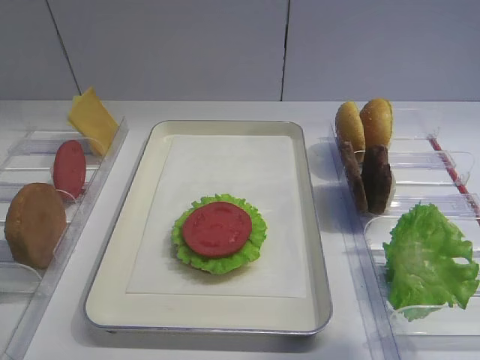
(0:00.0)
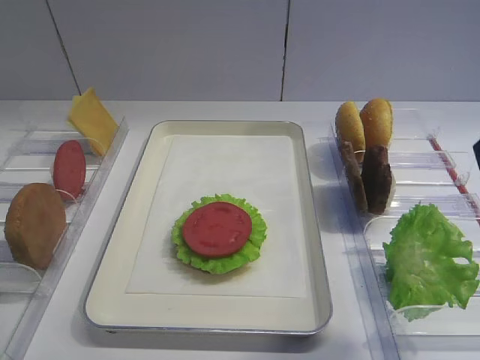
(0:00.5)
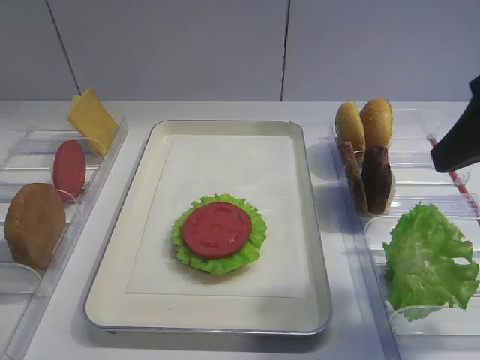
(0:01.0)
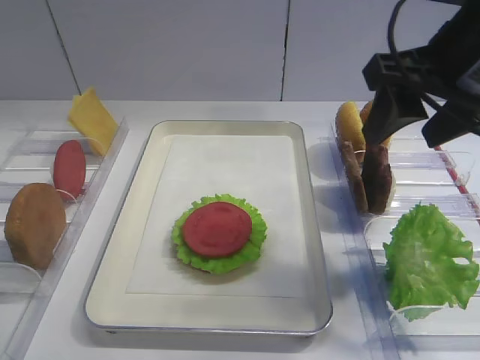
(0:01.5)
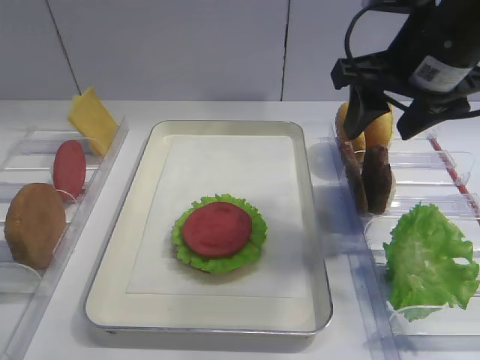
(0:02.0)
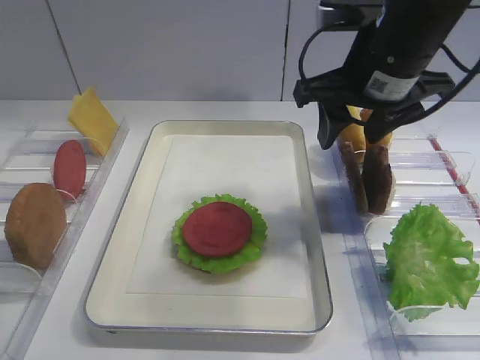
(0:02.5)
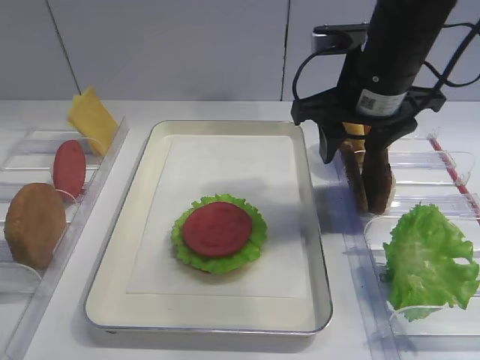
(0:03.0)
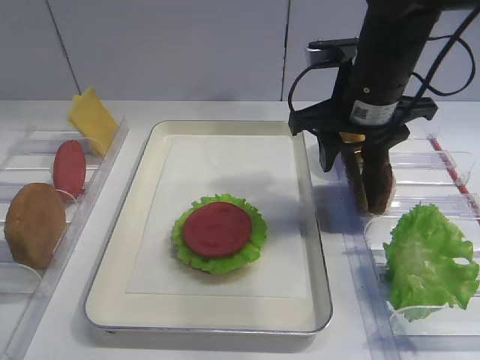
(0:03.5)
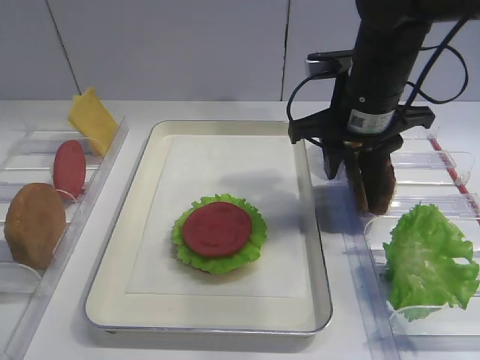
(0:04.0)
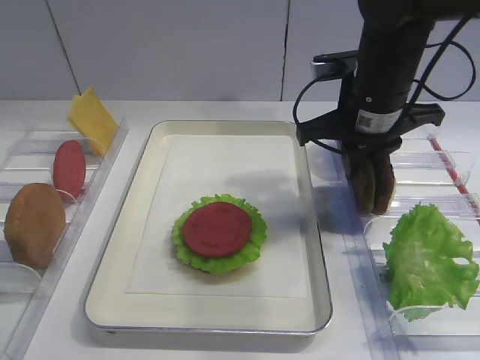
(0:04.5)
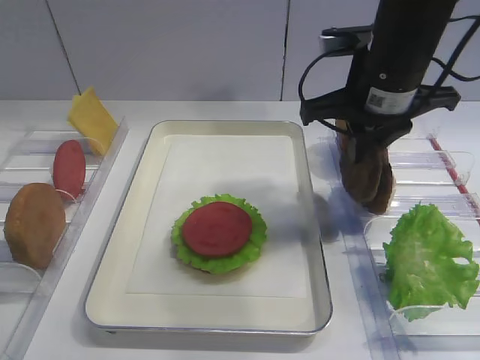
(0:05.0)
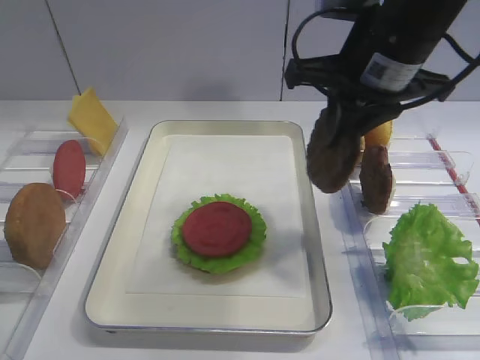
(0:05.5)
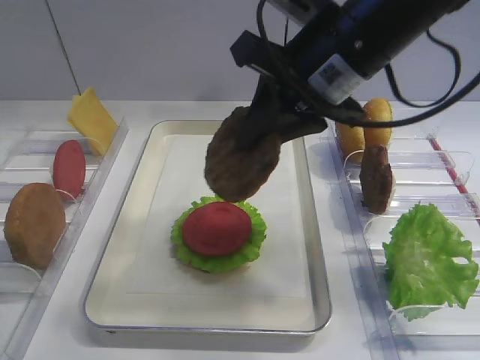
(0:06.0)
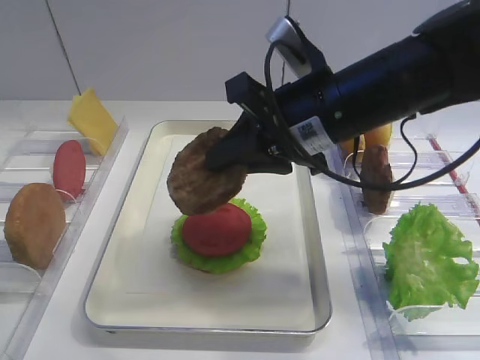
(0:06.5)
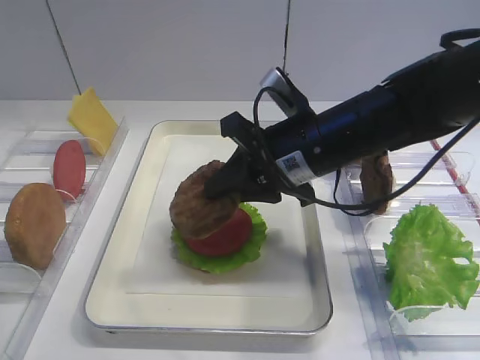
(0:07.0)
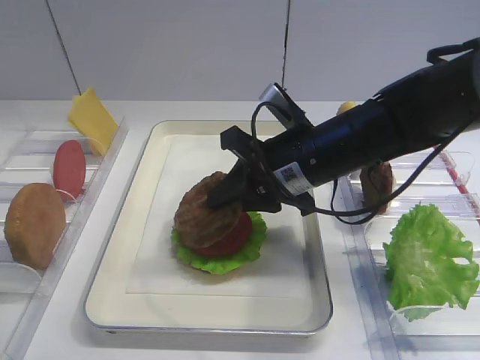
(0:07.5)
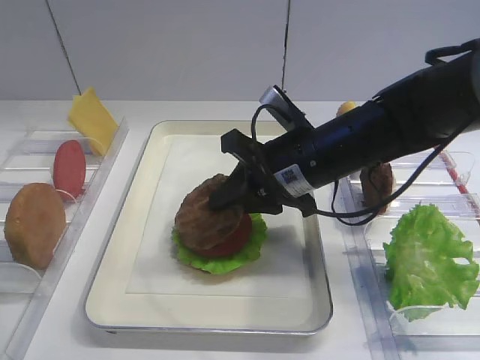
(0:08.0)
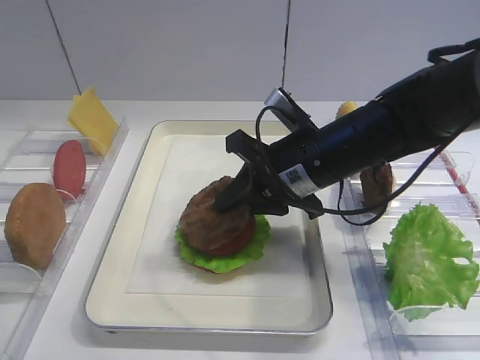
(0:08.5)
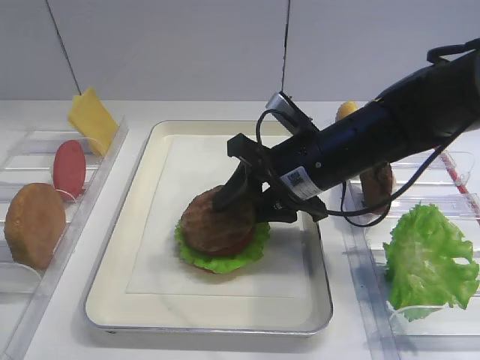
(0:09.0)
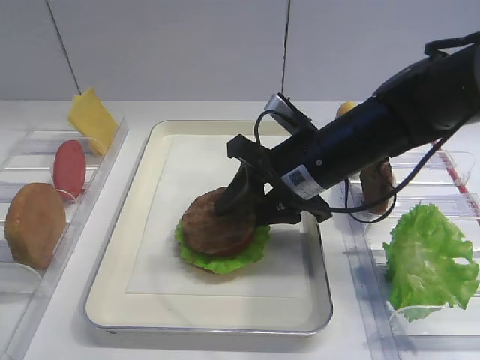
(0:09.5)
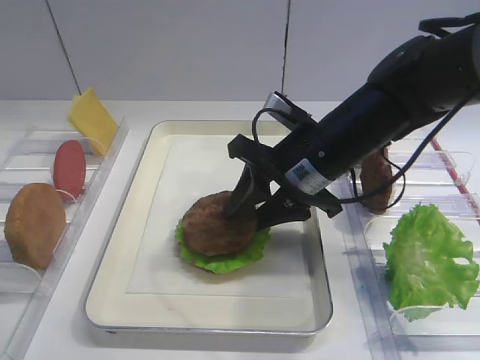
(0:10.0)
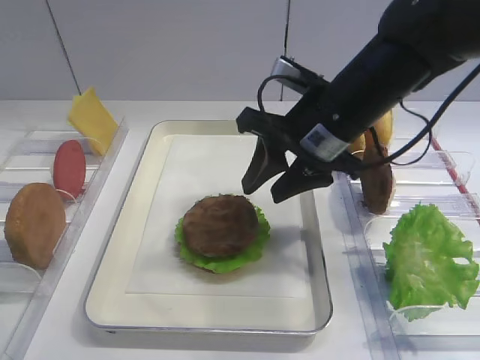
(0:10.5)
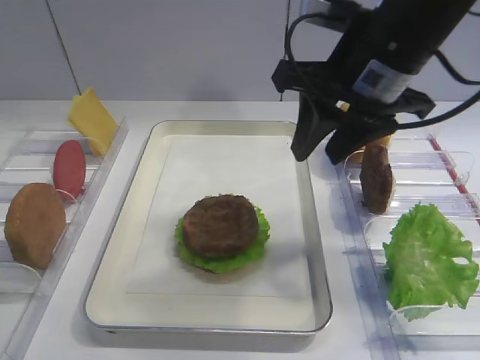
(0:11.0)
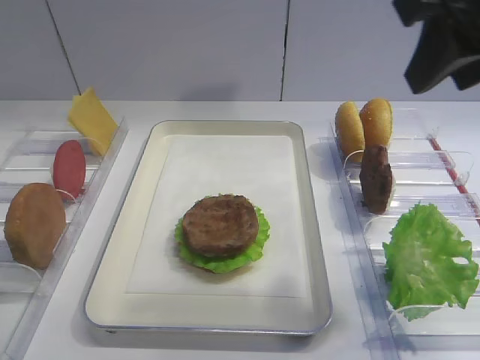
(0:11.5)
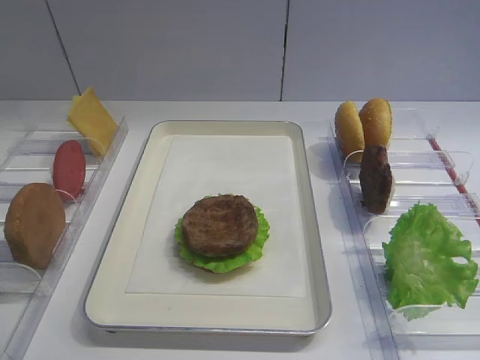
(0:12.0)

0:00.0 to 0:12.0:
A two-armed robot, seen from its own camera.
Step, 0:00.0 to 0:05.0: Pick up the cutlet with the right gripper.
Step, 0:05.5 to 0:10.5: Place the cutlet on the tomato slice with the right gripper.
0:02.0 to 0:04.0: The right gripper travels downward and forward by about 10 cm.
0:04.0 to 0:06.0: The right gripper moves upward and backward, roughly 10 cm, and closes.
0:06.0 to 0:08.0: The right gripper moves downward, about 15 cm.
0:08.0 to 0:10.0: The right gripper opens.
0:10.0 to 0:12.0: The right gripper is displaced backward, upward and to the right by approximately 30 cm.

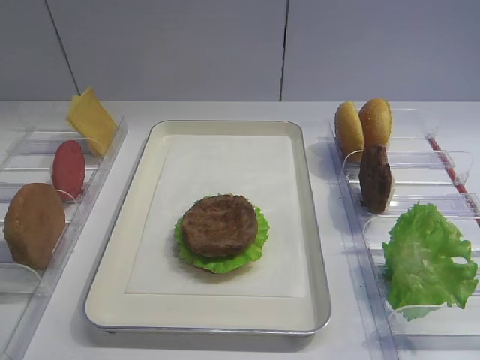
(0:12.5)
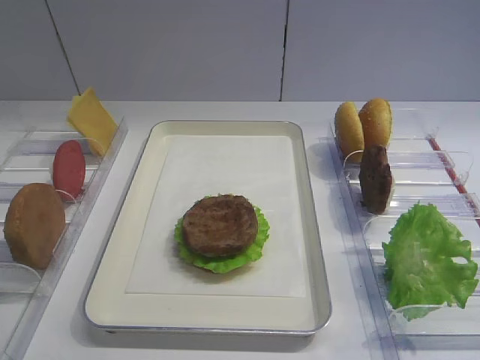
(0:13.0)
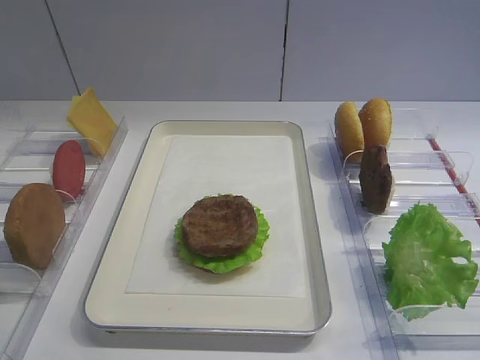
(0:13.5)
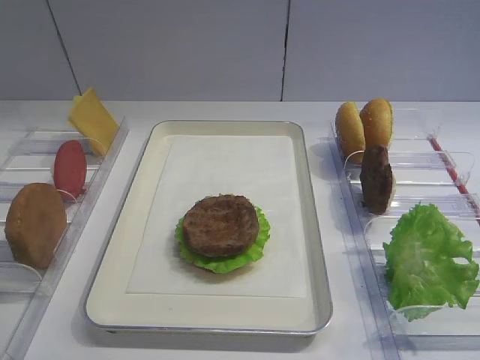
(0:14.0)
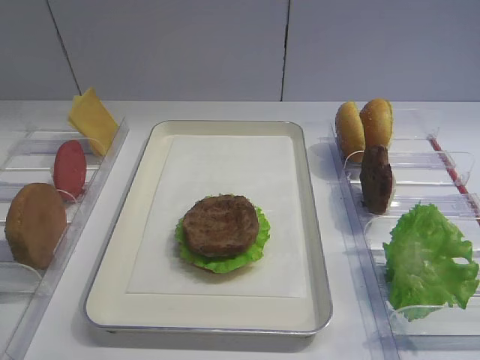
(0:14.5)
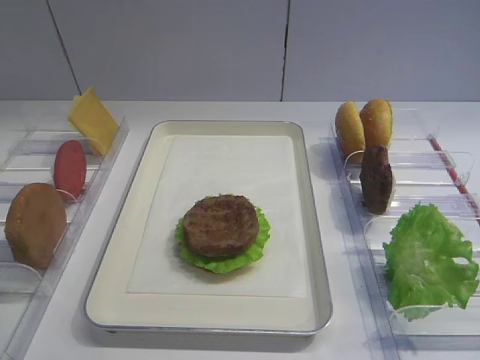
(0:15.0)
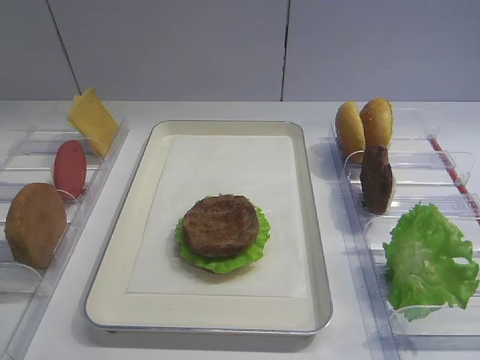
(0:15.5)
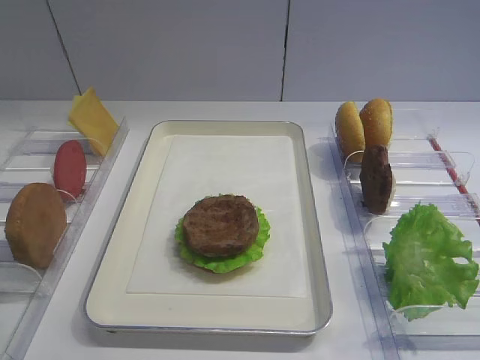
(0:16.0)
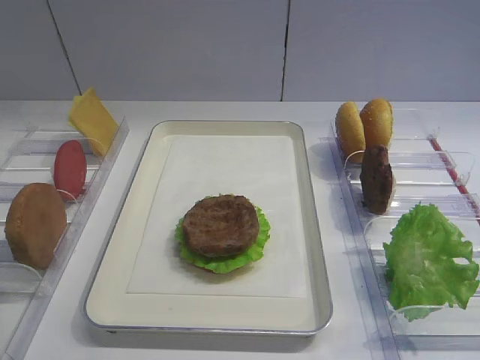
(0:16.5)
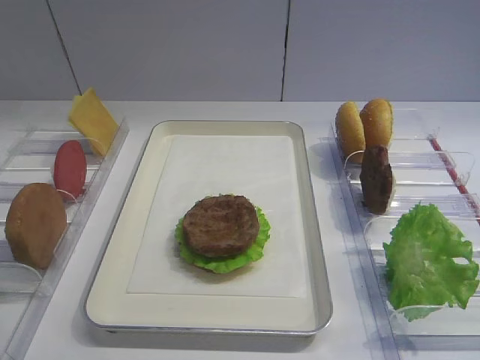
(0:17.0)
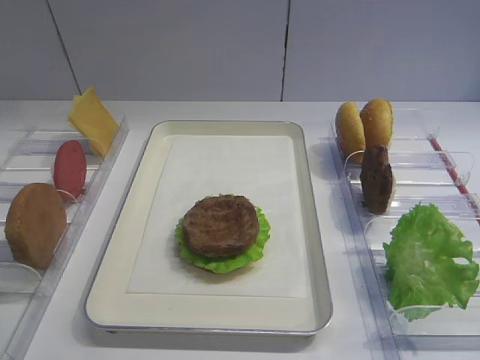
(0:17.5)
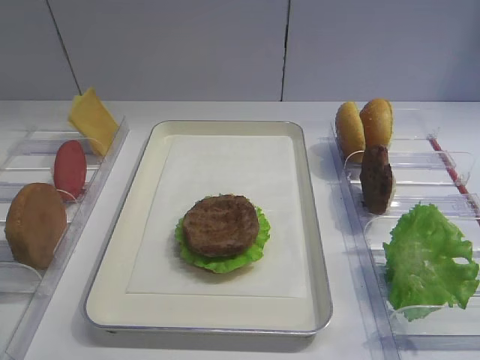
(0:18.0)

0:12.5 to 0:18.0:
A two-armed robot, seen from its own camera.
0:12.5 to 0:14.5: The right gripper travels downward by some 5 cm.
0:14.5 to 0:18.0: Both grippers stay put.

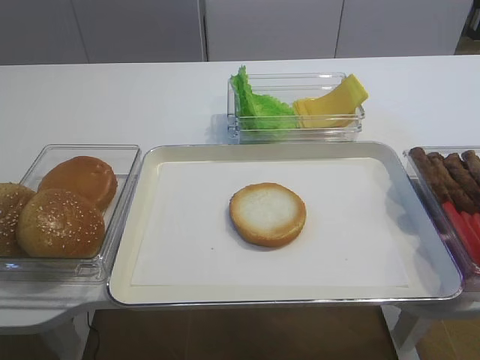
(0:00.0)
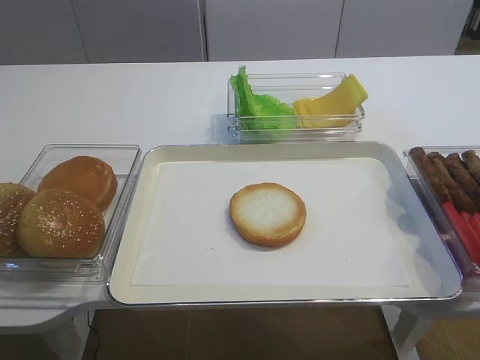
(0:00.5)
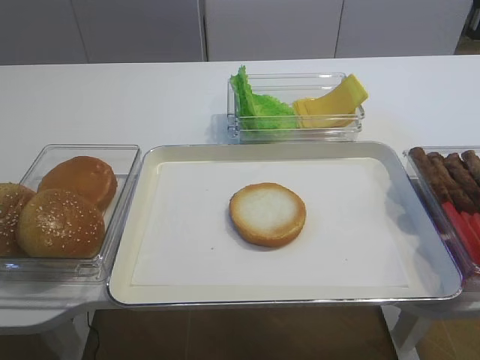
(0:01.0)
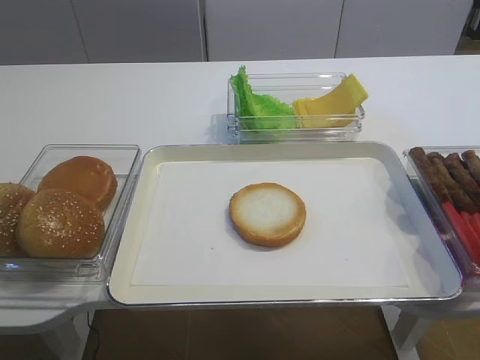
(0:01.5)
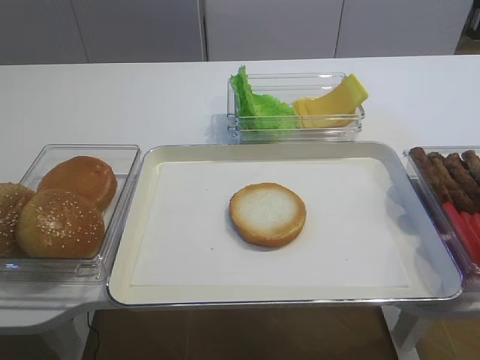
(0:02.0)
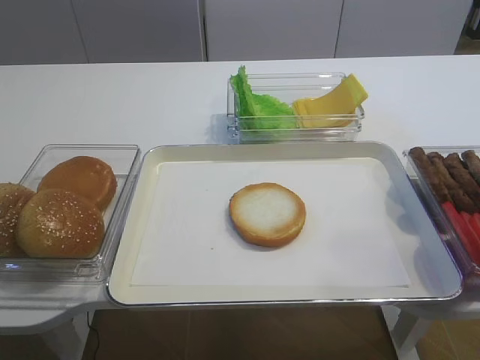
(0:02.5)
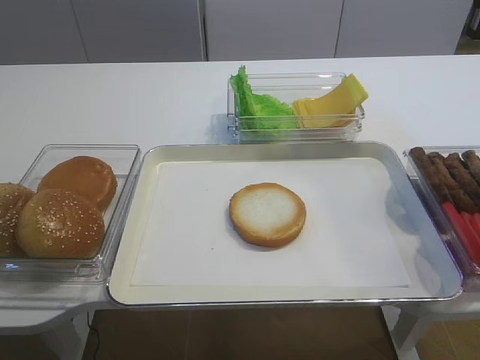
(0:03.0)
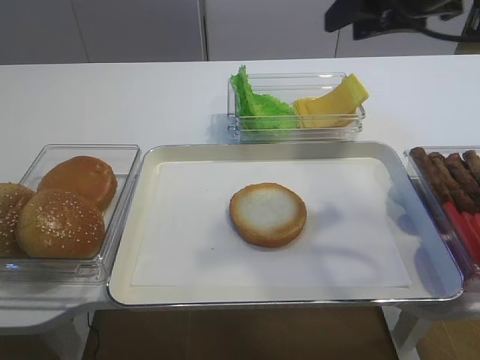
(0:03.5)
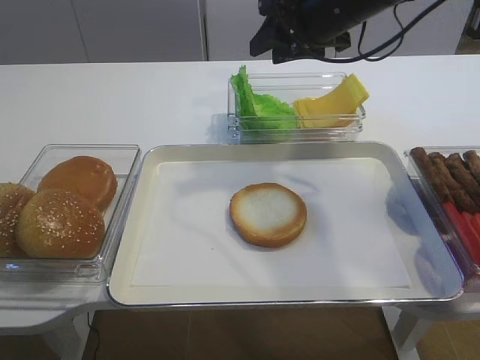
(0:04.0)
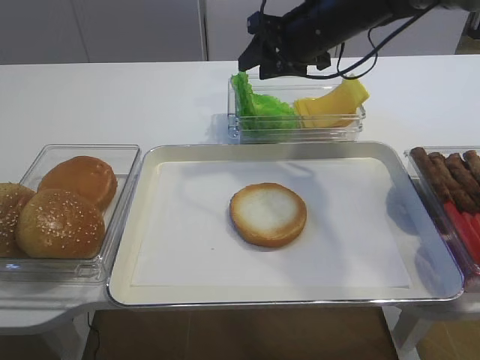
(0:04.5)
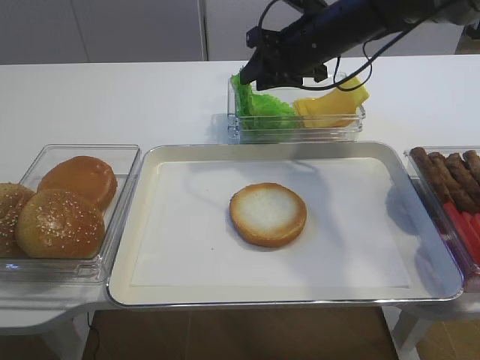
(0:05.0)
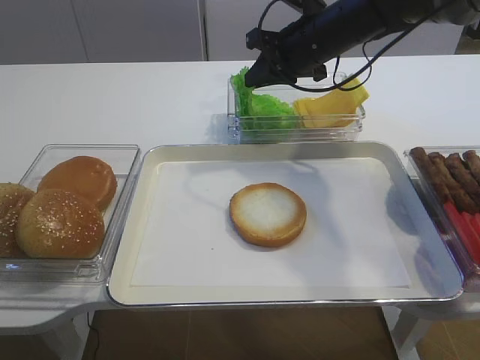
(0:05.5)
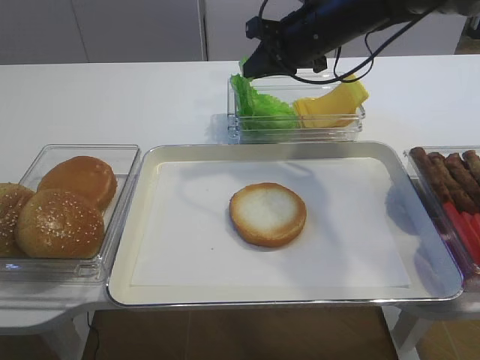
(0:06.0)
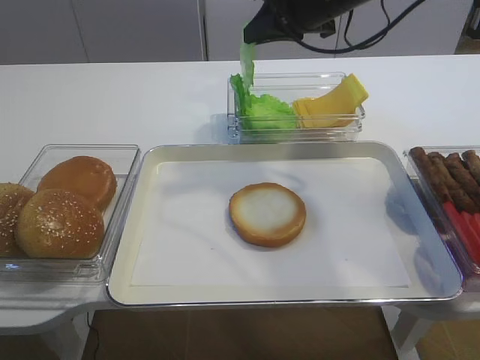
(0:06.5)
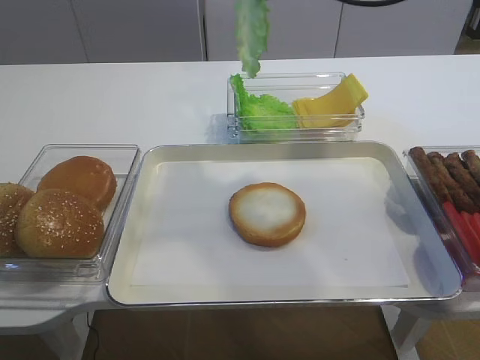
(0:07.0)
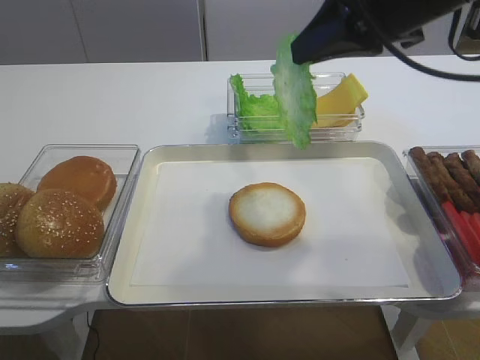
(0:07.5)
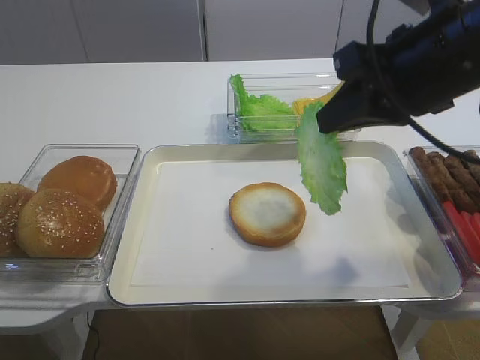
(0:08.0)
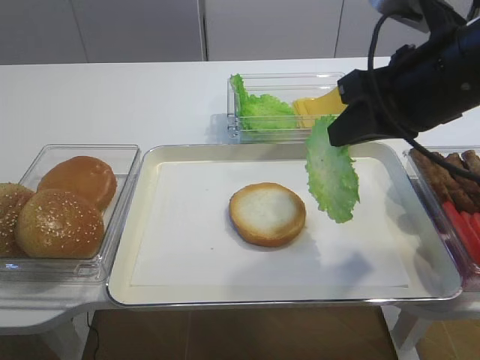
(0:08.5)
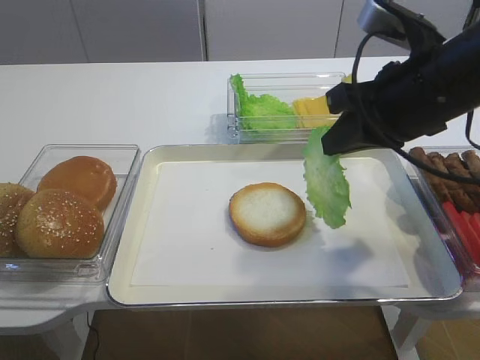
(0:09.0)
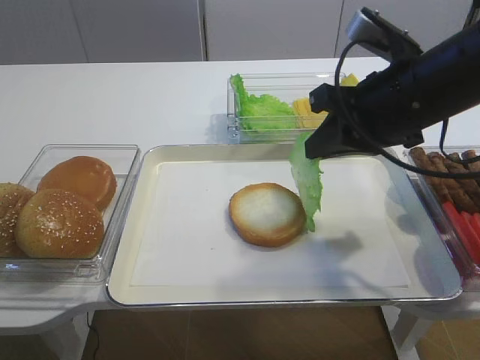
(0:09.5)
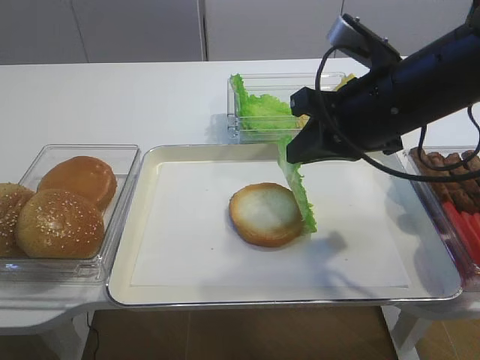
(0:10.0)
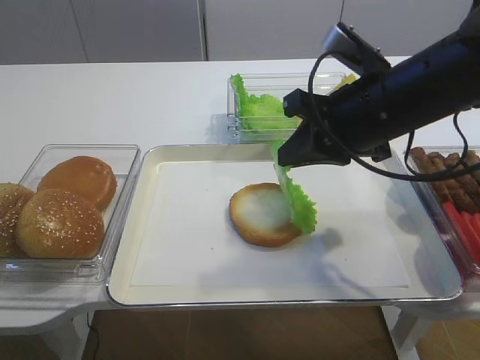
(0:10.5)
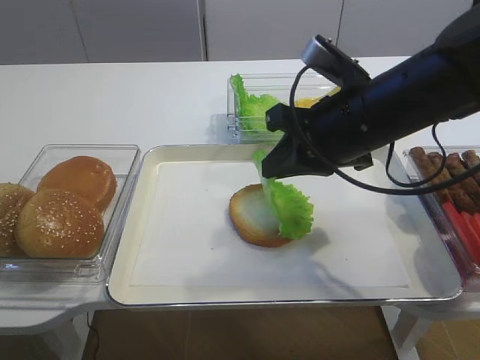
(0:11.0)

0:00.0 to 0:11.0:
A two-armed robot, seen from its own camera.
Step, 0:00.0 to 0:06.0: Pick up the lettuce leaf with the right gripper.
0:02.0 to 0:03.5: The right gripper is displaced forward by approximately 35 cm, and opens.
0:03.5 to 0:05.5: The right gripper goes roughly 20 cm forward, downward and to the left, and closes.
0:05.5 to 0:07.5: The right gripper moves backward and upward, roughly 20 cm.
0:07.5 to 0:09.0: The right gripper travels downward by roughly 10 cm.
0:09.0 to 0:11.0: The right gripper moves roughly 5 cm.
